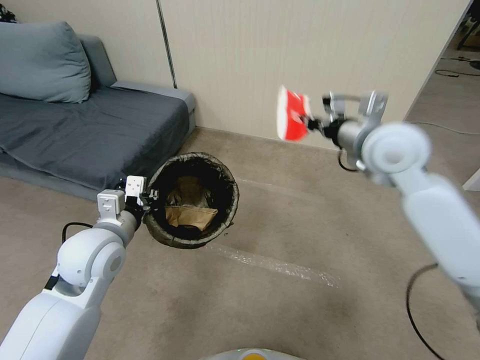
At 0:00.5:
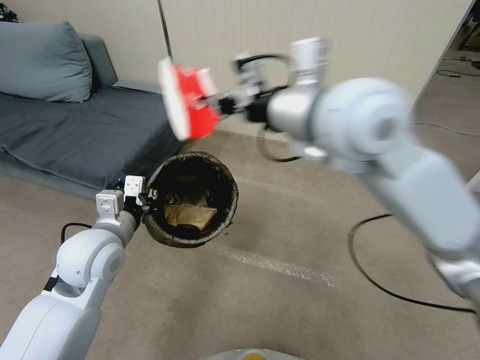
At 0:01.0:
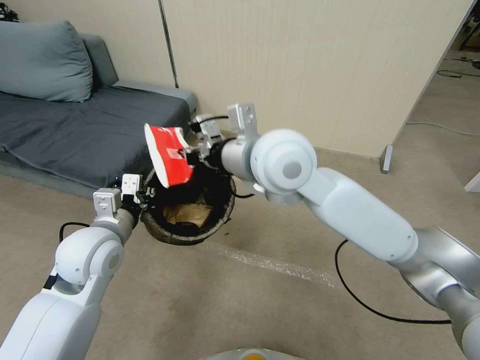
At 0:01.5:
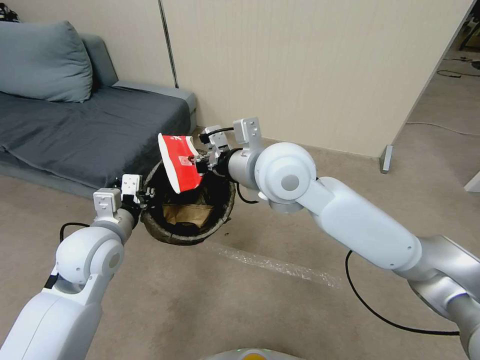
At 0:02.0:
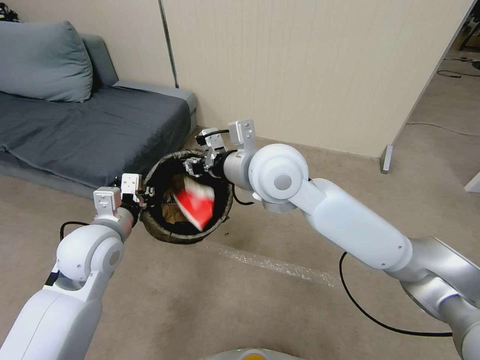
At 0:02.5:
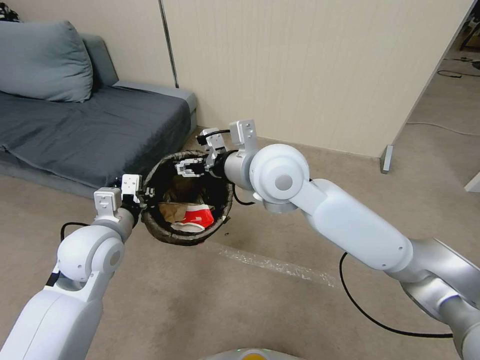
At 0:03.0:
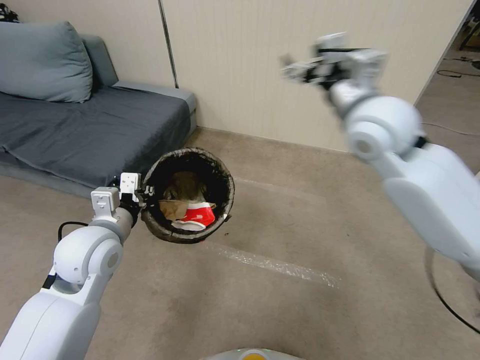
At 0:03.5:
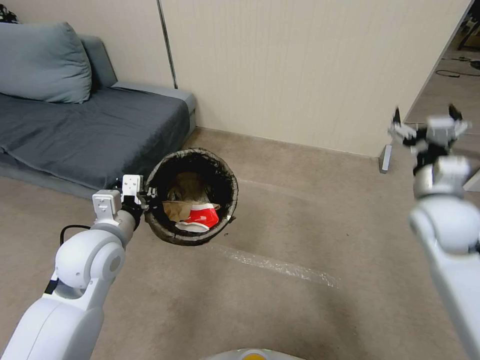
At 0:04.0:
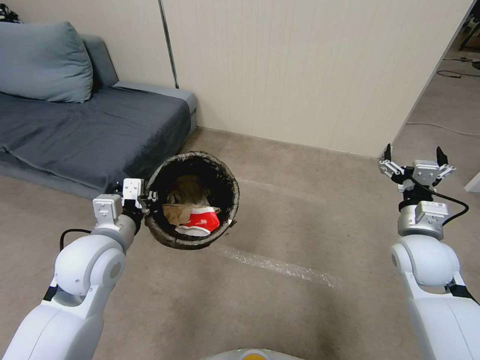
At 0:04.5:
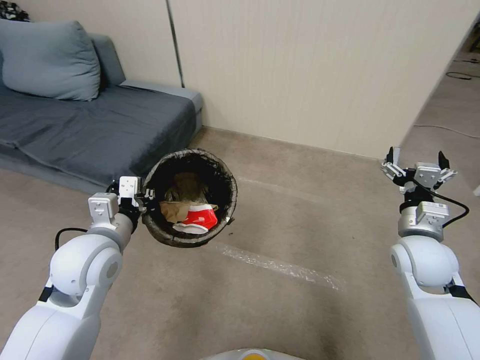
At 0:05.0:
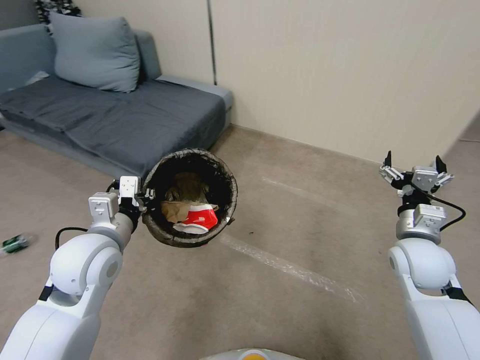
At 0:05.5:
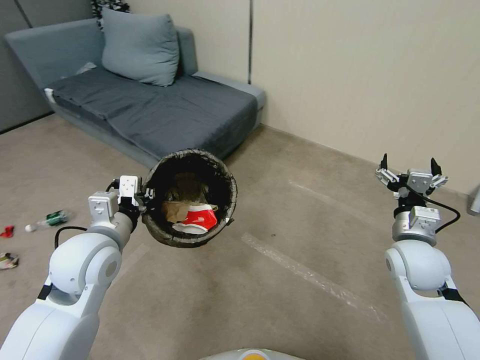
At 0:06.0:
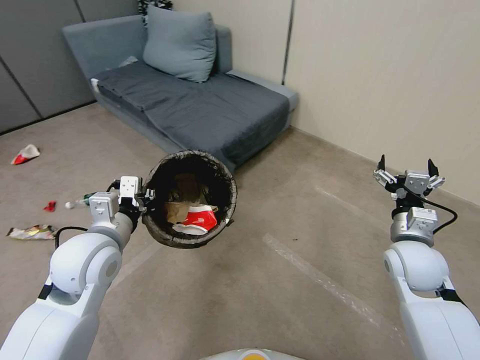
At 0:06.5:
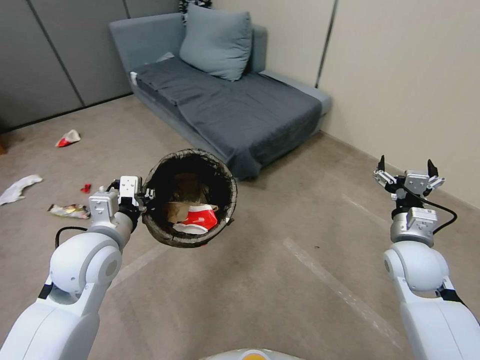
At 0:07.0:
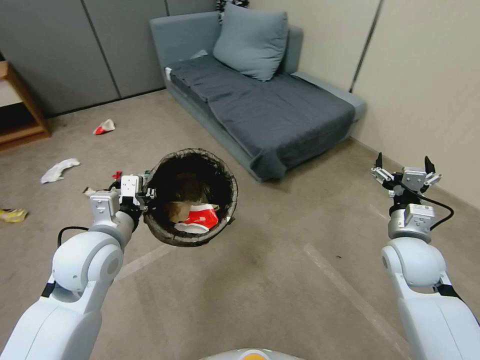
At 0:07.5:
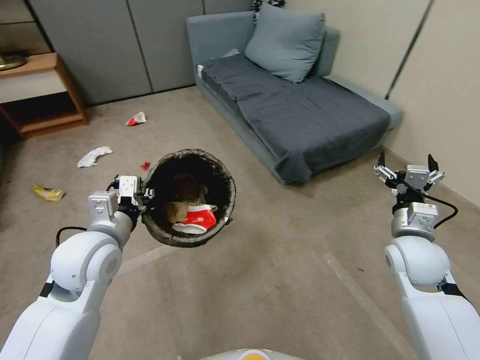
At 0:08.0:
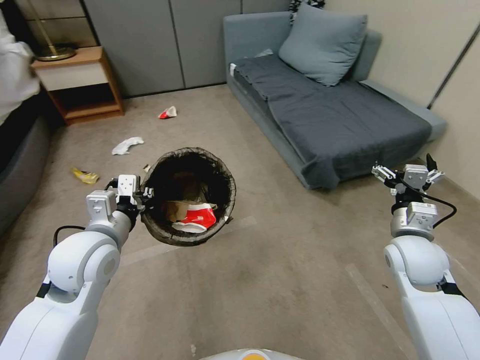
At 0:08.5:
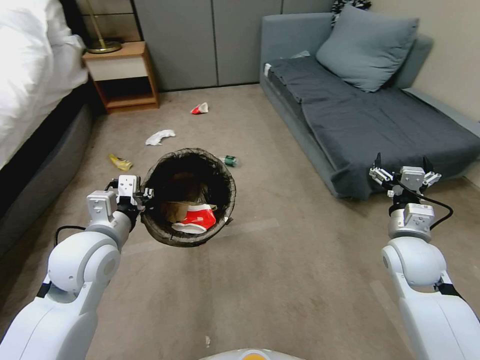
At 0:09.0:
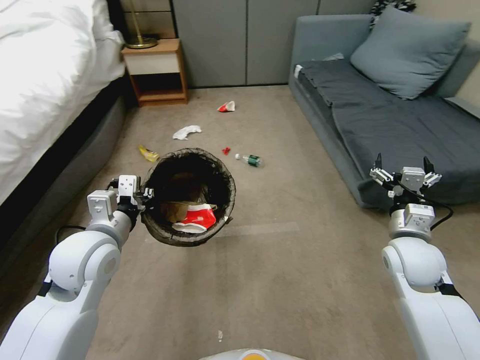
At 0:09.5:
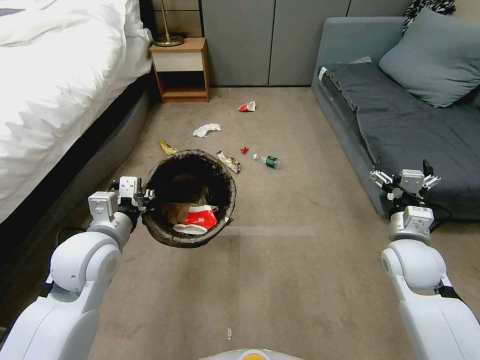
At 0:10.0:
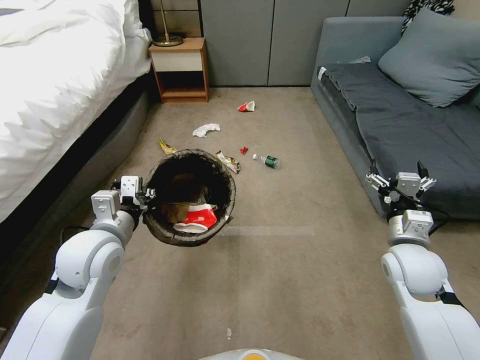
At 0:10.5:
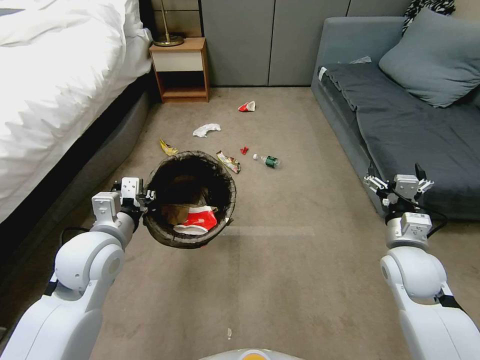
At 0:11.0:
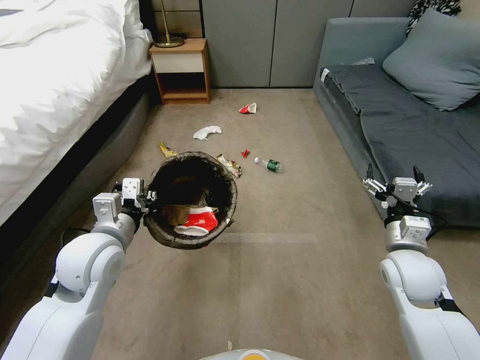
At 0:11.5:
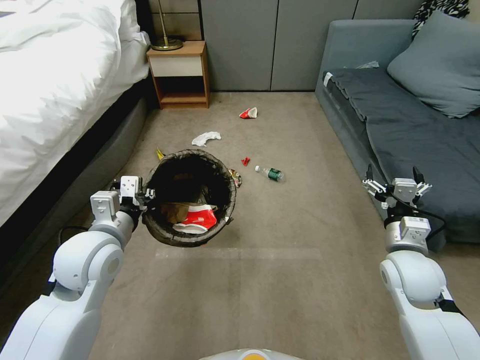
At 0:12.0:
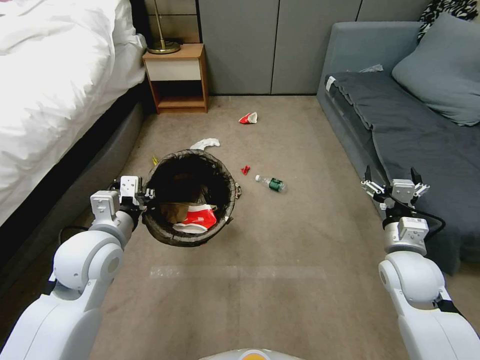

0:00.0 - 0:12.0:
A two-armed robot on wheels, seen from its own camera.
Task of the whole recording: Pick up the trash bin, then pick up the garbage from the floor and place it into the trash bin.
0:00.0 - 0:02.0: The right gripper shifts roughly 20 cm to the left.
0:02.0 - 0:04.0: The right gripper heads to the right and downward, covering roughly 35 cm, and opens its fingers.
0:10.0 - 0:12.0: The grippers move only a little.

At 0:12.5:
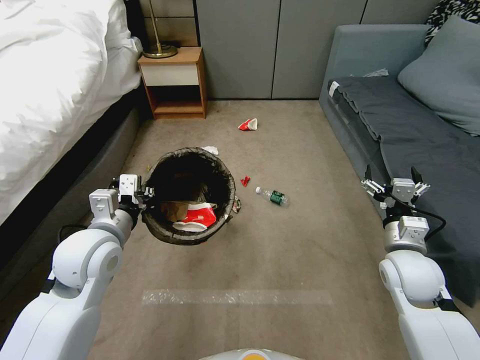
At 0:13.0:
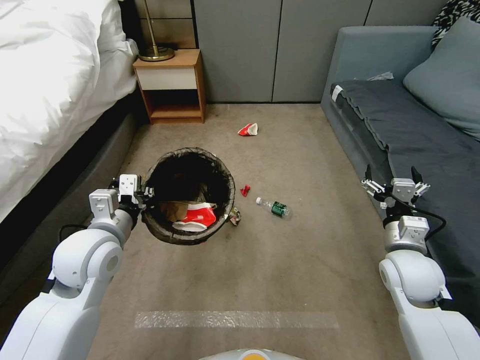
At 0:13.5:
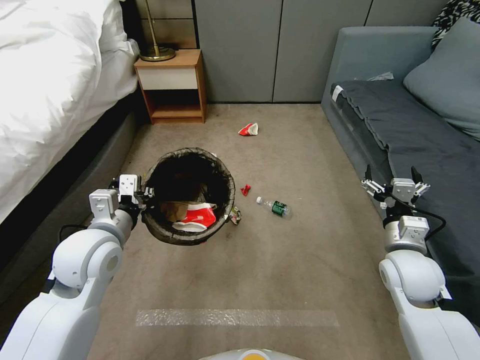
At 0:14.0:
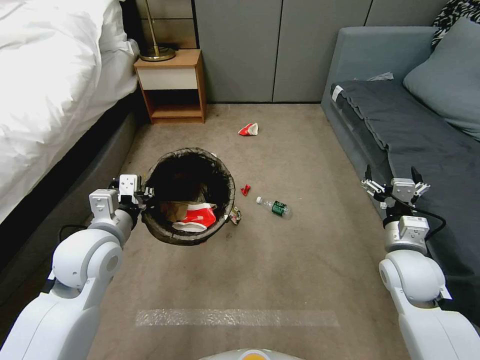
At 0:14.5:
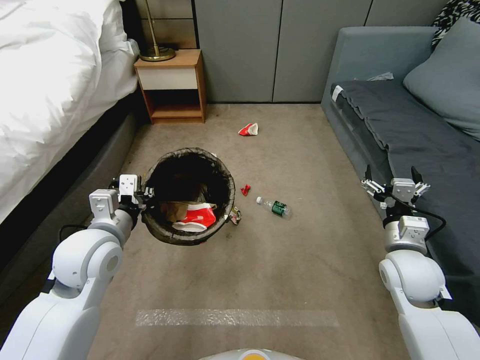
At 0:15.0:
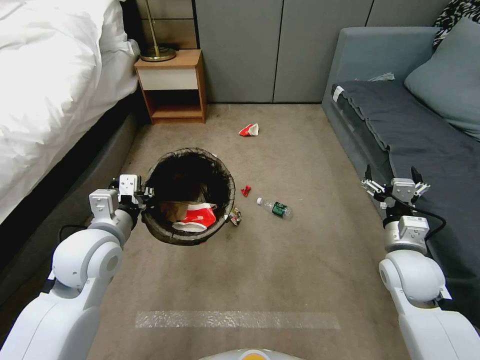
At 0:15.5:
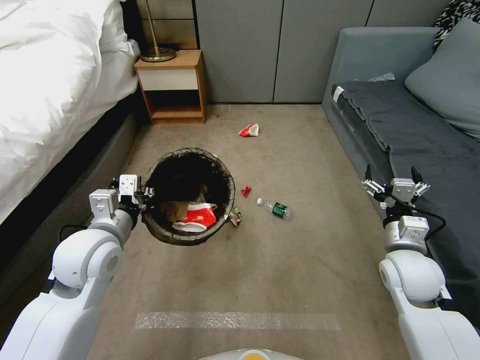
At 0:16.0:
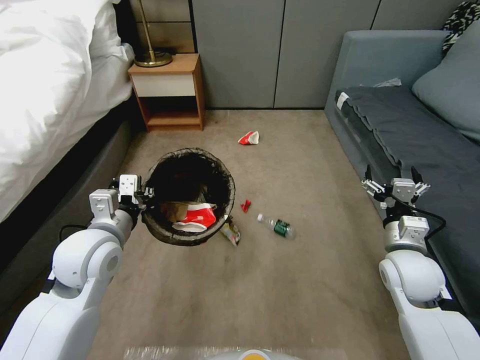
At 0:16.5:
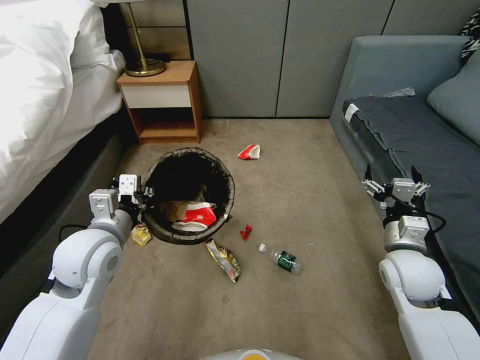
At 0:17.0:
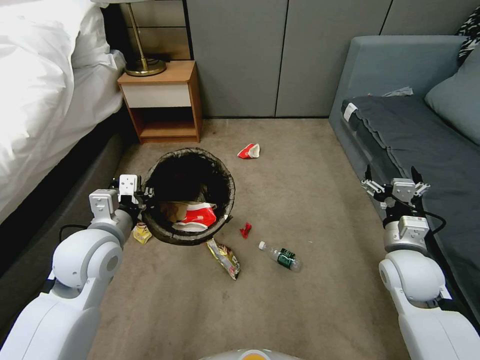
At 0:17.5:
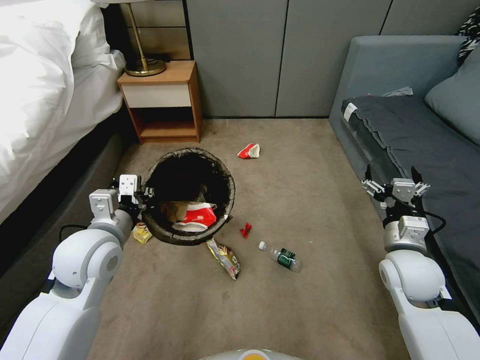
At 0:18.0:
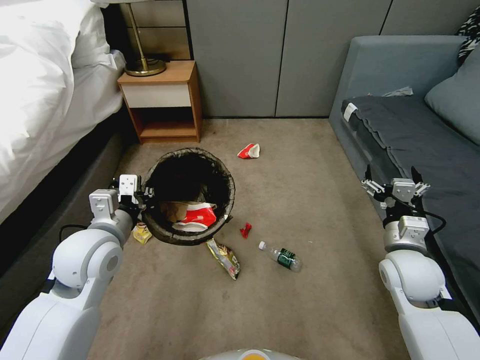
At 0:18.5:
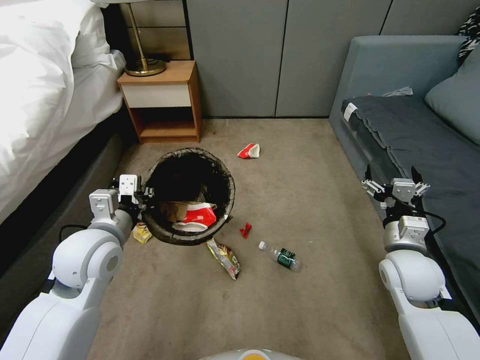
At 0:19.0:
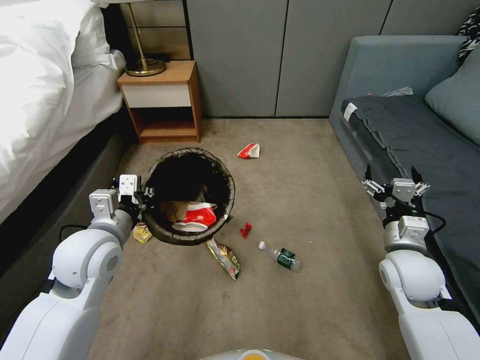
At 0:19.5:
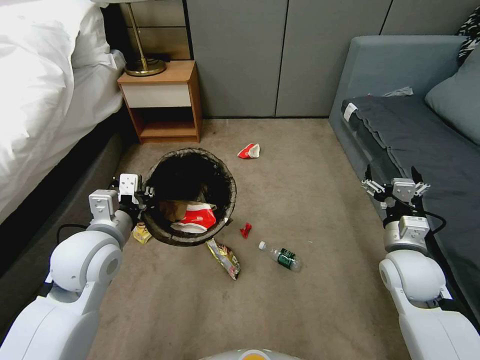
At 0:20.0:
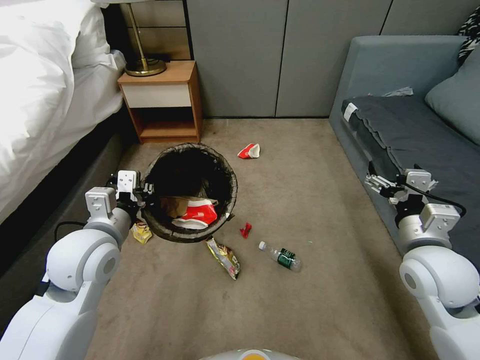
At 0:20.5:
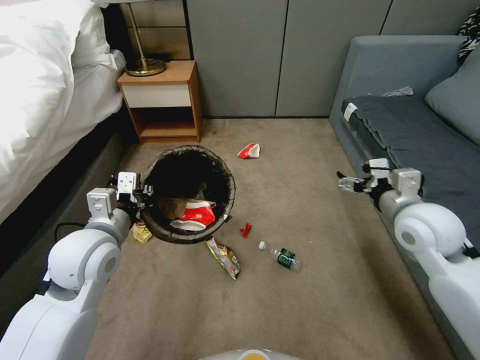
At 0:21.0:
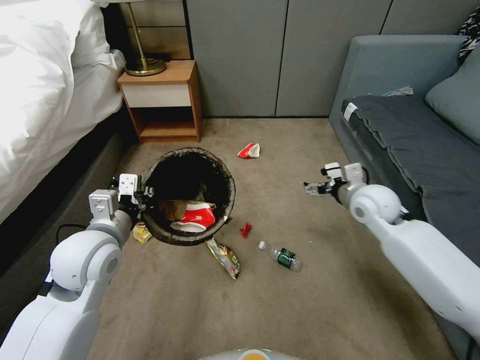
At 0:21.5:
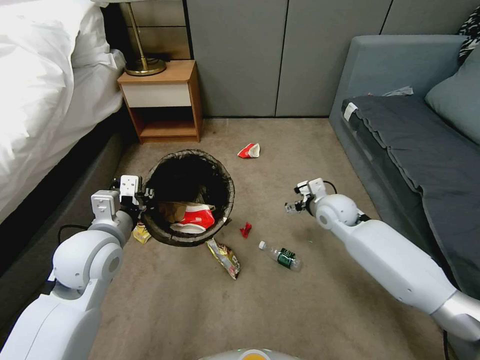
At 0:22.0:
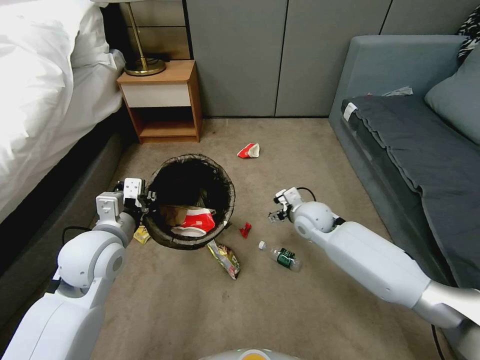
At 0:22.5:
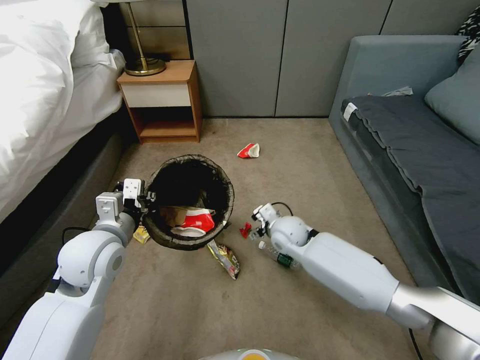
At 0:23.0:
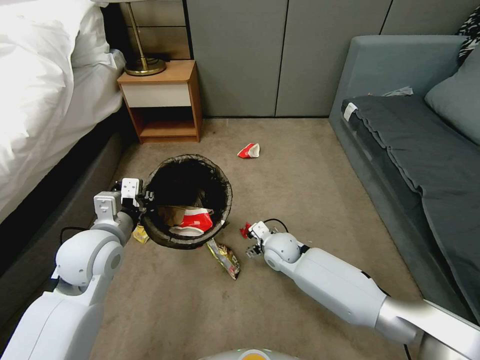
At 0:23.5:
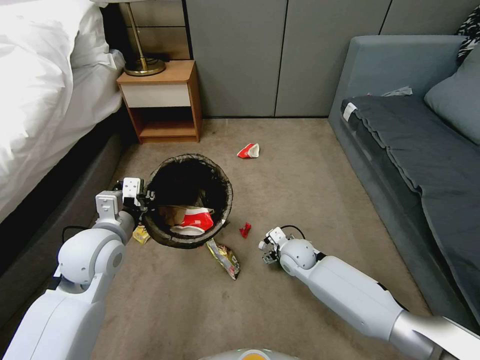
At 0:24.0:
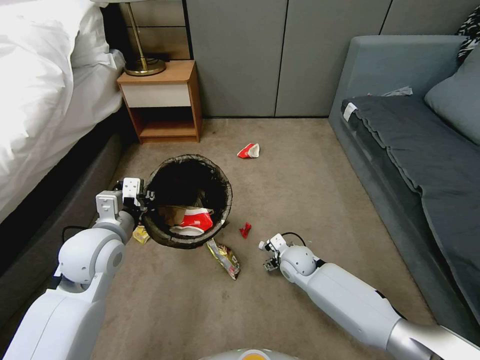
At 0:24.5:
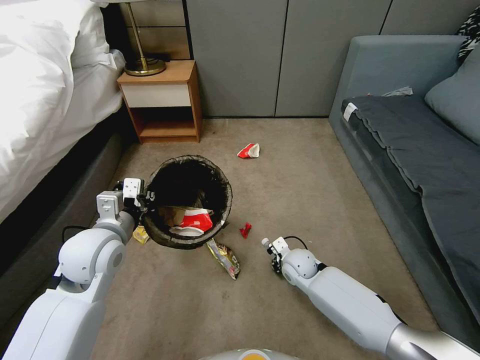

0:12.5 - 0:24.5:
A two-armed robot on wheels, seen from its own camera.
Task of the whole recording: Pick up the trash bin, then pick up the garbage from the floor and place it into the trash bin.
0:12.5 - 0:14.5: The two grippers keep their place.
0:16.5 - 0:18.5: Neither gripper changes place.
0:18.5 - 0:20.5: The right gripper moves upward, some 10 cm.
0:20.5 - 0:22.5: The right gripper goes roughly 30 cm to the left, downward and forward.
0:22.5 - 0:24.5: The right gripper shifts approximately 10 cm downward, and closes up.

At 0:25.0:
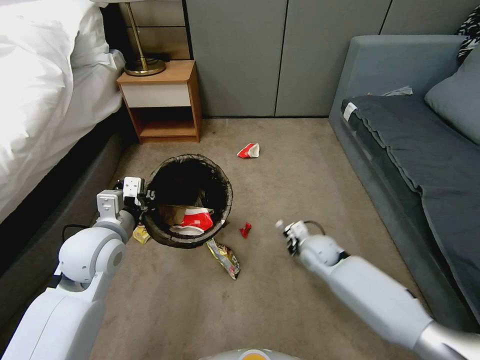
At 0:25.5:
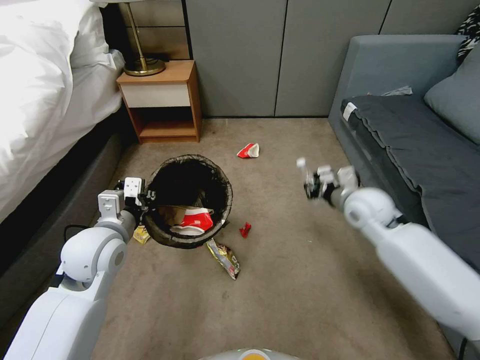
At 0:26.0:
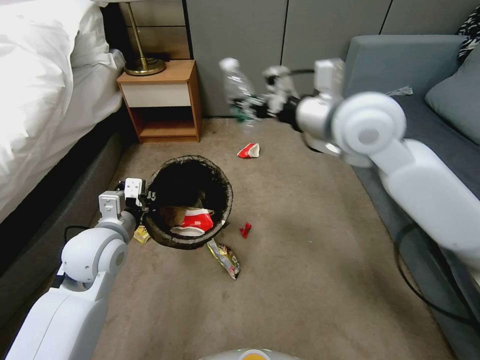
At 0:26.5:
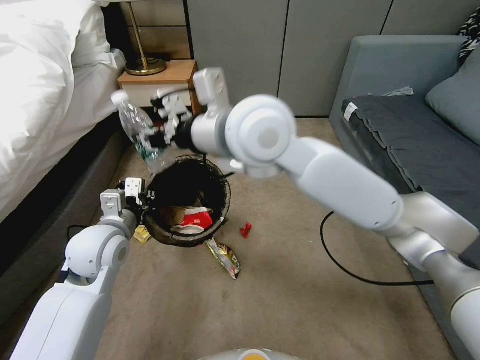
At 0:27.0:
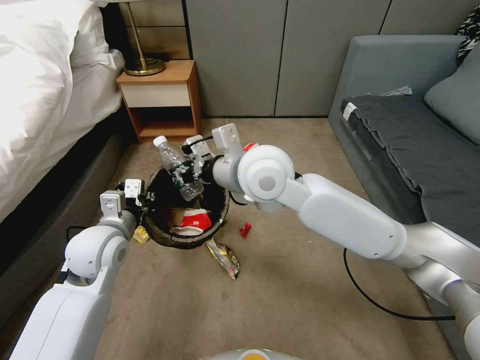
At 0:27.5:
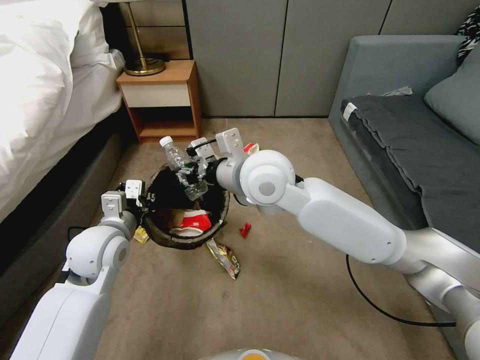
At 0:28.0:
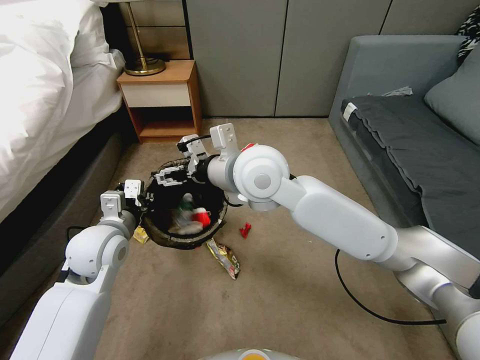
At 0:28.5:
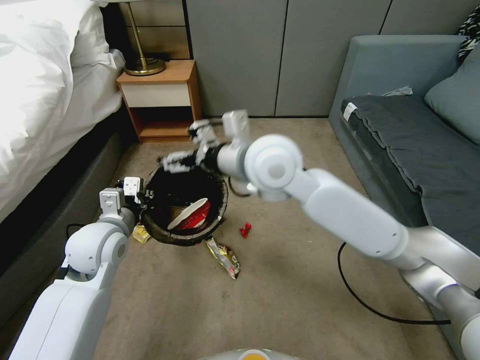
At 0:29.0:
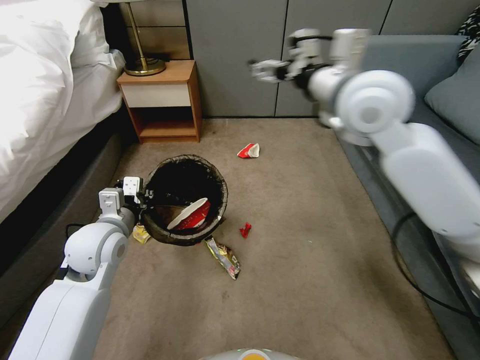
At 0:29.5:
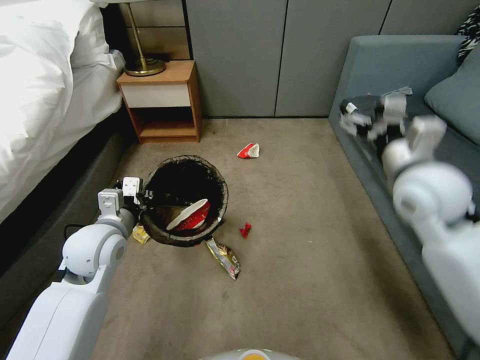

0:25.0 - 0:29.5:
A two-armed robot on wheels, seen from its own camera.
Task of the whole recording: Pick up the trash bin, then pick up the garbage from the floor and place it into the trash bin.
0:25.0 - 0:27.0: The right gripper goes roughly 40 cm upward and to the left.
0:27.0 - 0:29.5: The right gripper heads to the right, covering some 25 cm, and opens.
